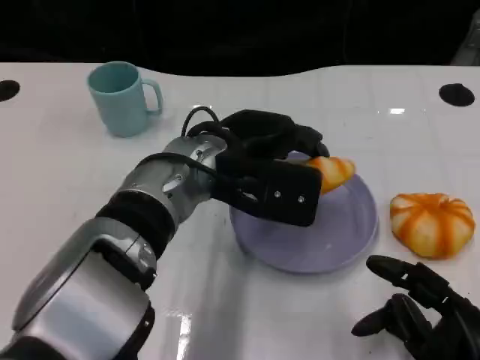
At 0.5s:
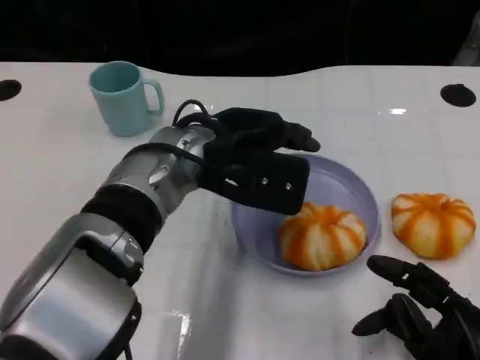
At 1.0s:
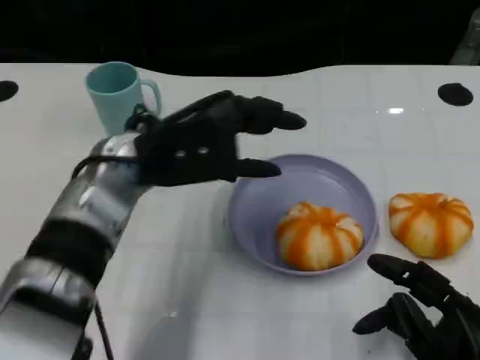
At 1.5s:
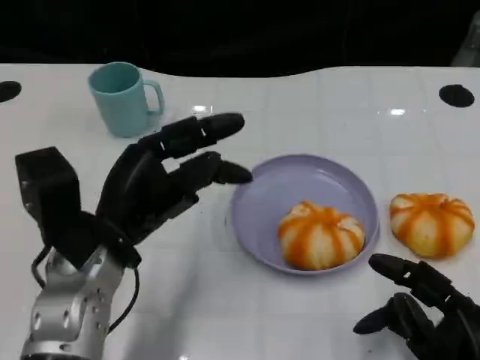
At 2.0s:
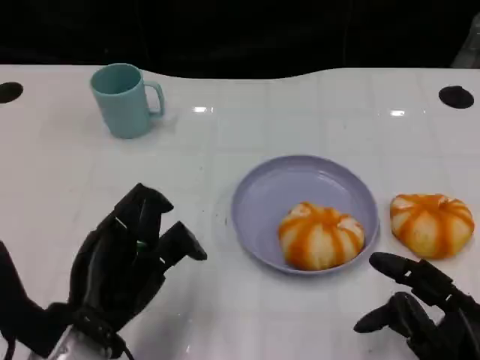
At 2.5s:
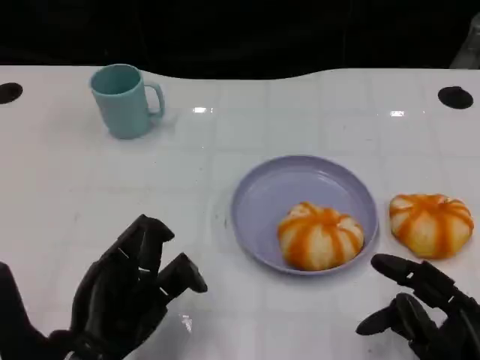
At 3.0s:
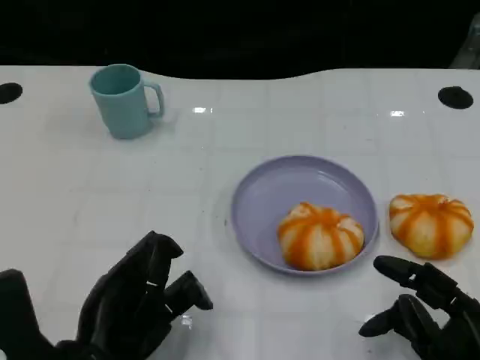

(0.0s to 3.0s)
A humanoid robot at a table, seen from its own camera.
Task of the whole recording: Grasp the bread from the table and place it into the plate.
0.0s - 1.5s: The left hand moves to the left and backward, approximately 15 cm.
1.5s - 3.0s: The left hand moves backward, roughly 10 cm.

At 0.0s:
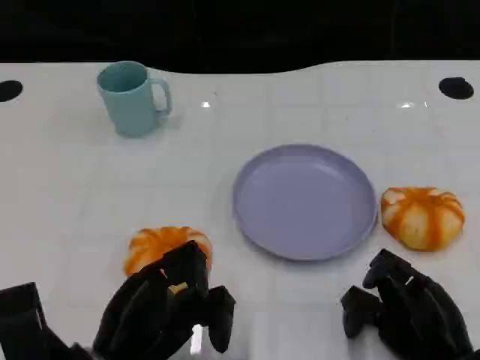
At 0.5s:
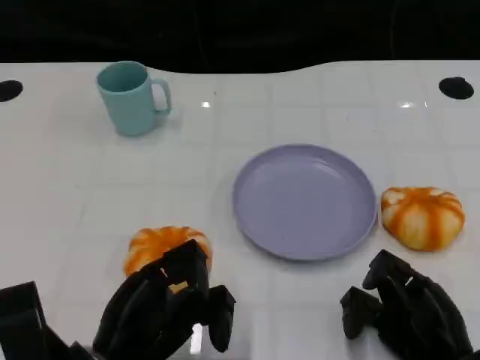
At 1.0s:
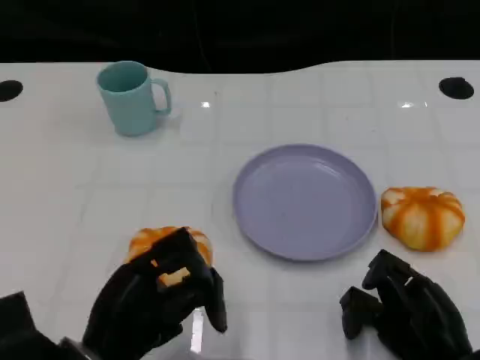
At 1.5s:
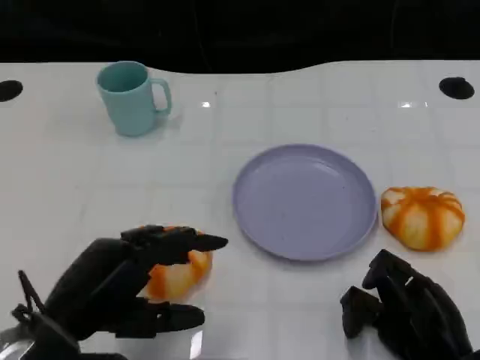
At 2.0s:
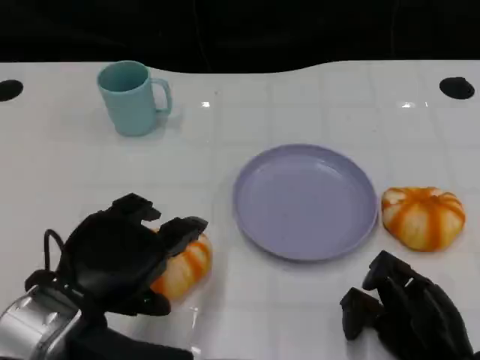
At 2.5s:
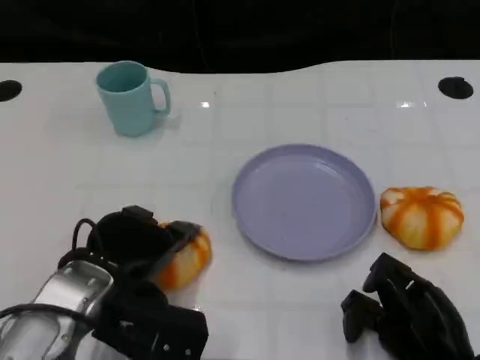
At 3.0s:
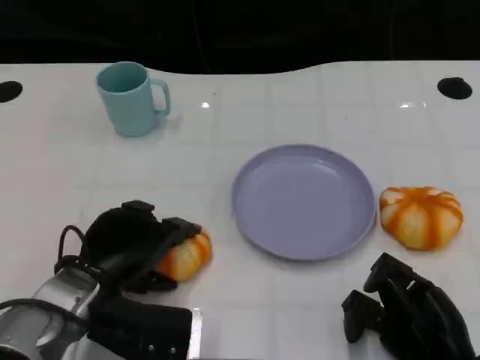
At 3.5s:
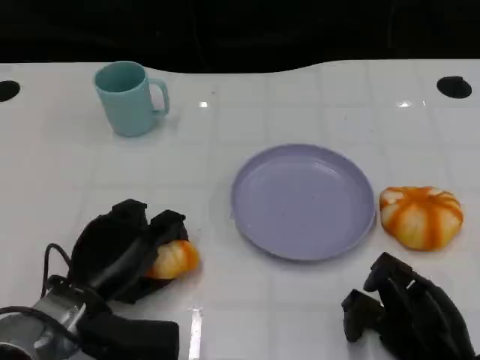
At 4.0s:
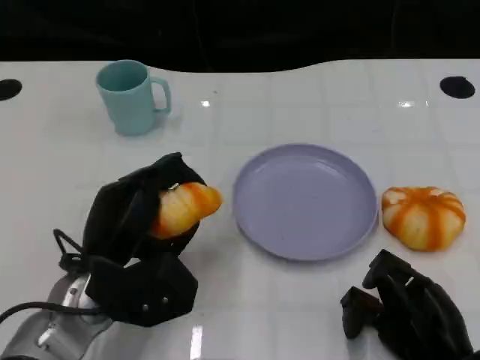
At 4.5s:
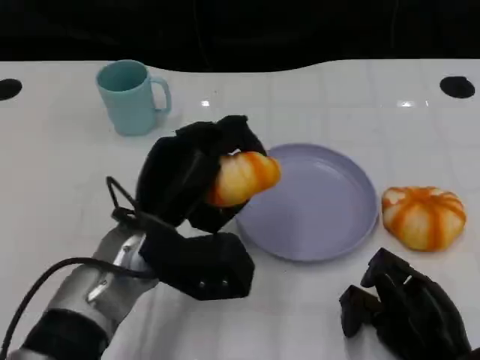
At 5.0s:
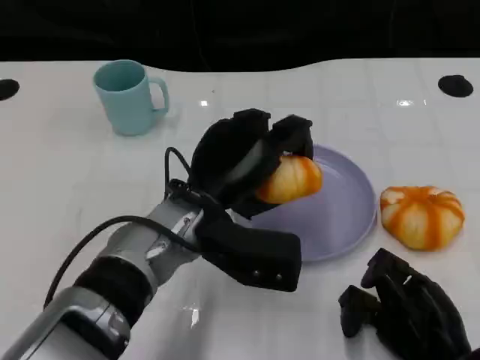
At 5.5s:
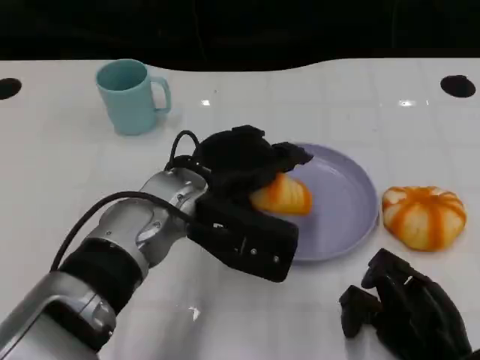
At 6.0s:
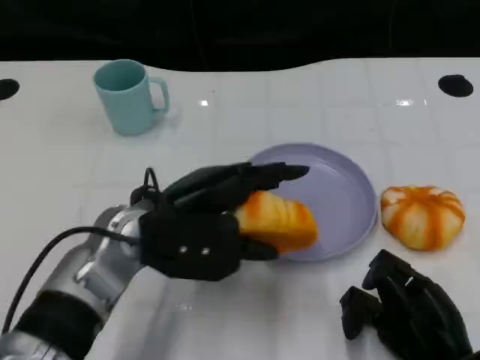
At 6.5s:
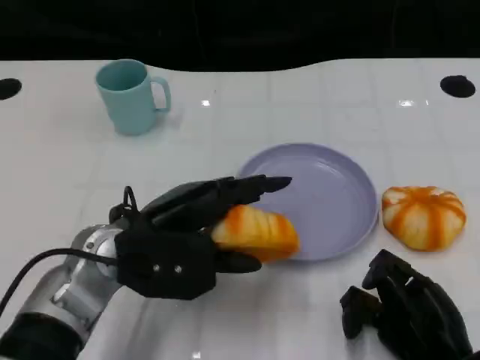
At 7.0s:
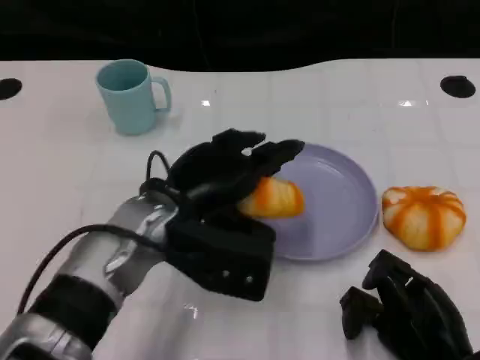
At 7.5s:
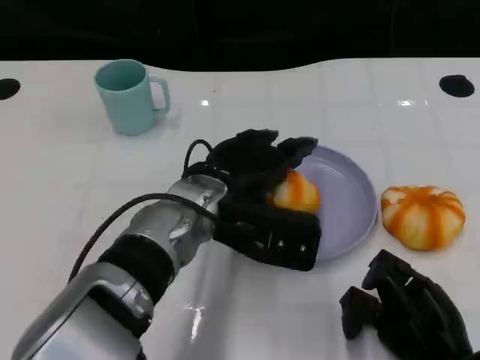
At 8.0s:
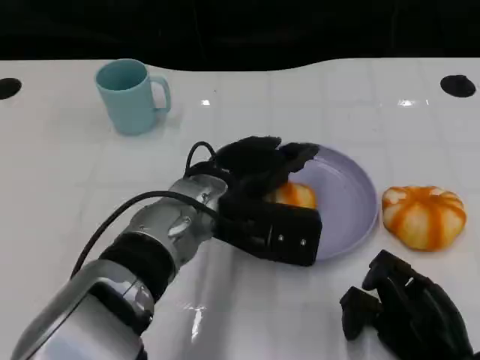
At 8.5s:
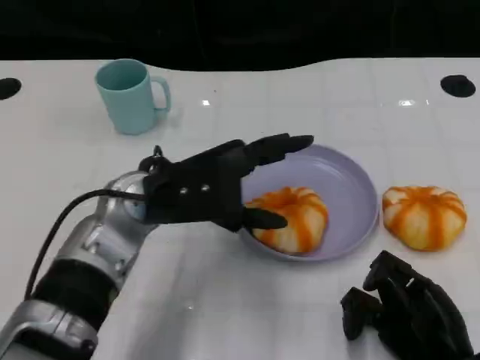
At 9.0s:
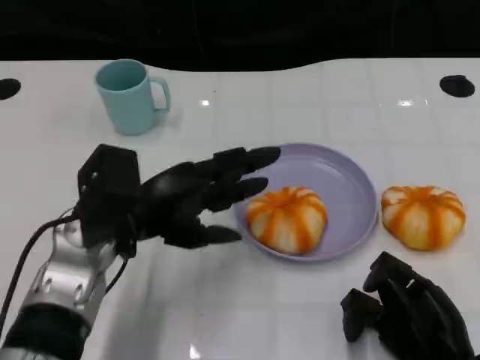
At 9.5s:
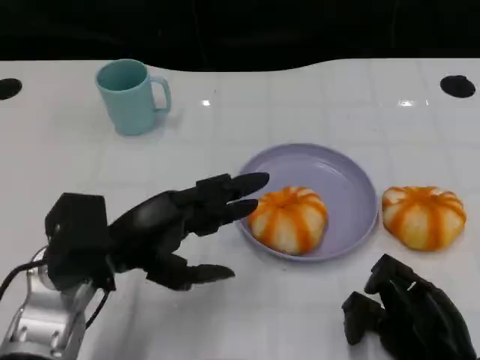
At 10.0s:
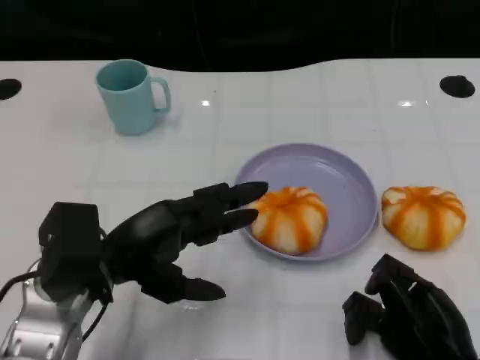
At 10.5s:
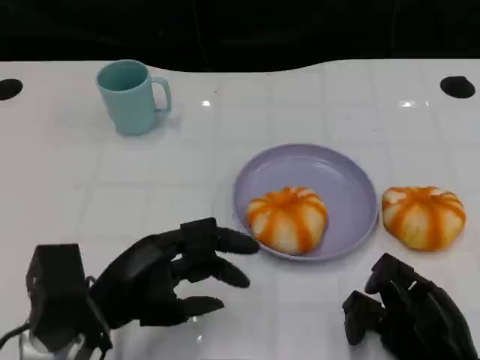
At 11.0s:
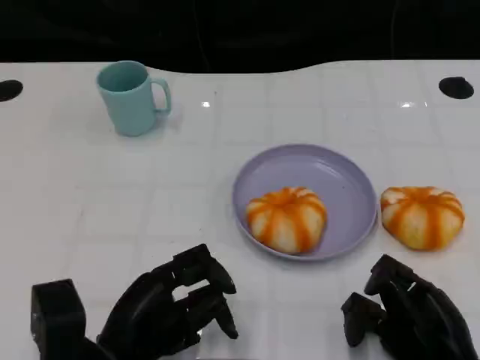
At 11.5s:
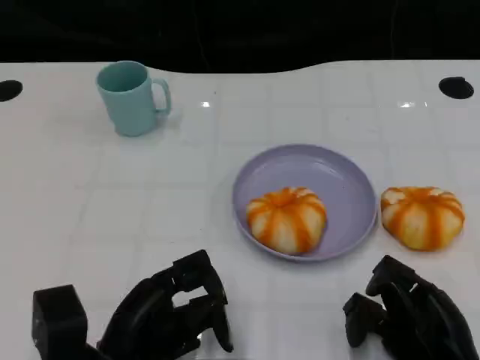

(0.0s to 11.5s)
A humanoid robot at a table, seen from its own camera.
Task of the whole recording: Grasp the bread from the table and place it into the plate.
0.0s - 2.0s: The left hand heads upward, covering approximately 10 cm.
2.0s - 4.0s: The left hand heads forward and downward, covering about 5 cm.
6.0s - 7.5s: The left hand heads to the right, covering some 5 cm.
7.5s - 9.5s: The left hand heads to the left, covering some 15 cm.
9.5s - 11.5s: The left hand is displaced backward and downward by about 10 cm.
